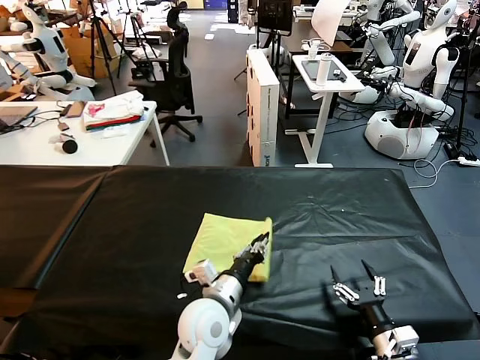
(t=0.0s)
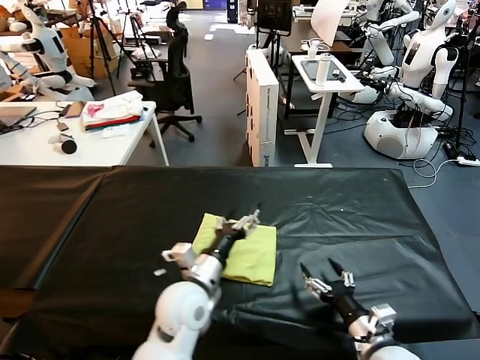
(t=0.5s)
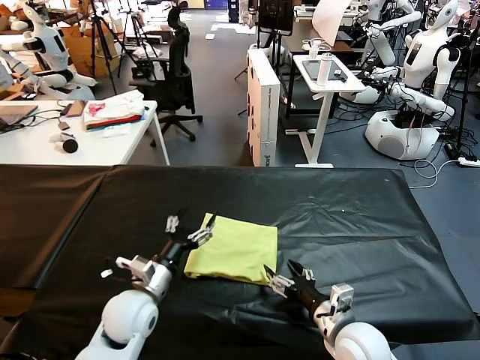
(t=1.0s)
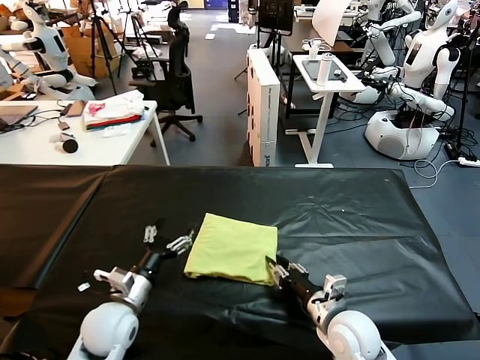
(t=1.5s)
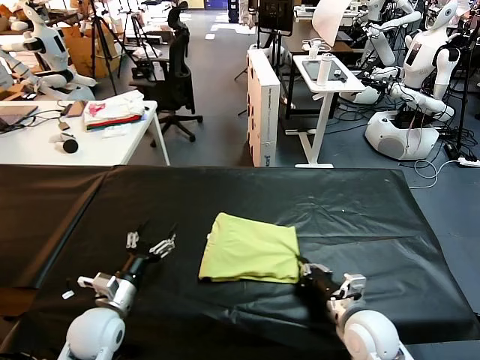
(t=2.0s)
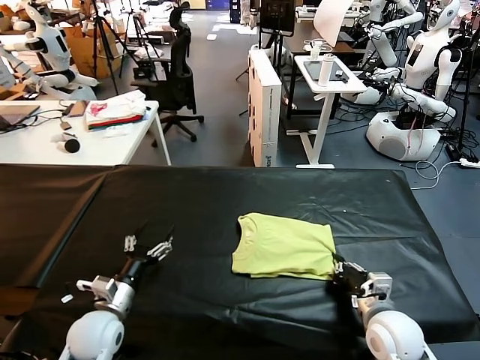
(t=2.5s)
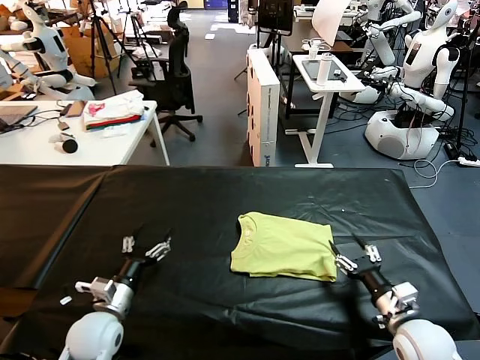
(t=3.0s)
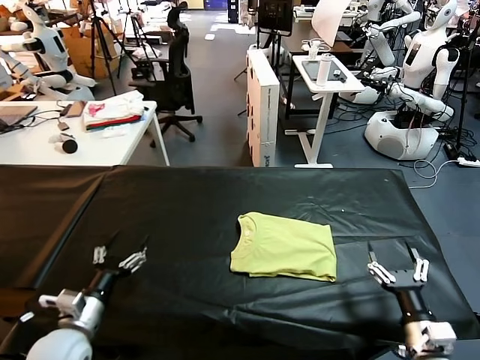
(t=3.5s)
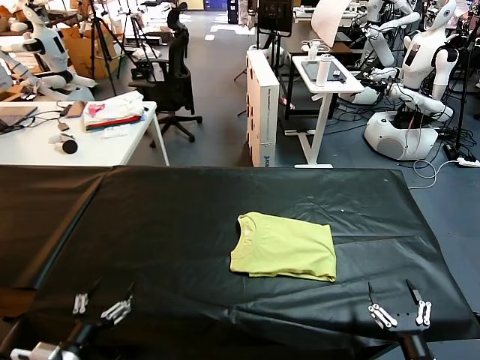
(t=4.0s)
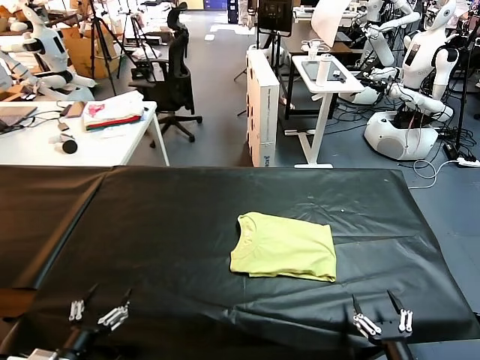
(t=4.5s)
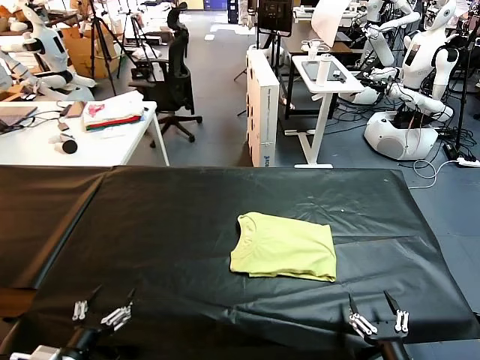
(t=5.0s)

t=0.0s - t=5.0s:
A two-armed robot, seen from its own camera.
Task of the whole recording: fold and organize the clothes.
Step, t=0.5s - t=2.5s: Drag the clothes to the center of the table.
t=0.0s - t=2.5s: The left gripper shifts roughly 25 cm to the left, and opens its fingers. Meanwhile the right gripper heads forward, covering approximately 10 cm, travels to the left and back again, roughly 10 cm each way, and closes up.
t=2.5s - t=5.0s: Both grippers travel together backward, roughly 15 cm. The right gripper opens.
